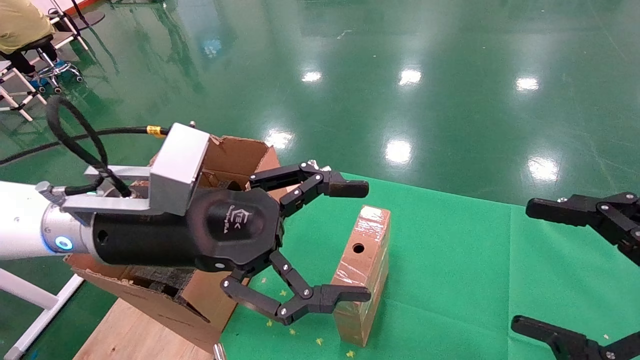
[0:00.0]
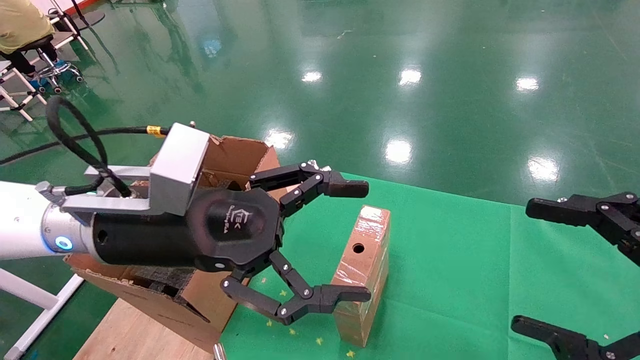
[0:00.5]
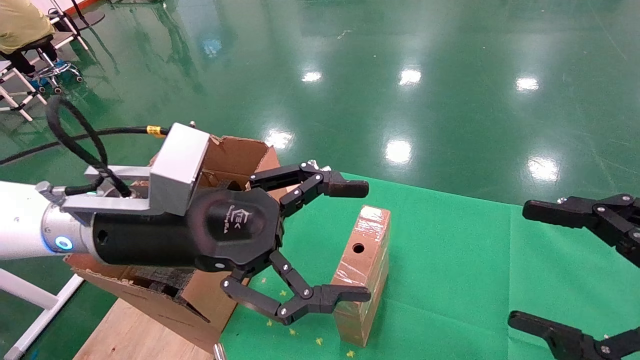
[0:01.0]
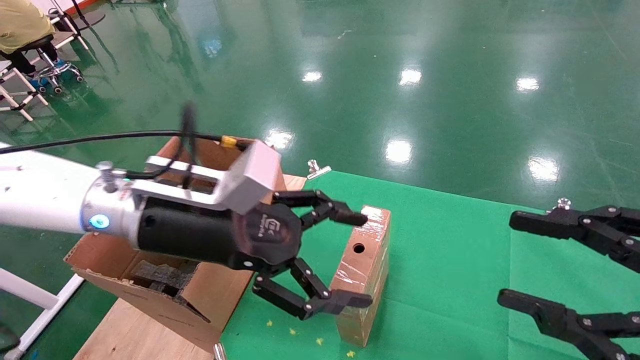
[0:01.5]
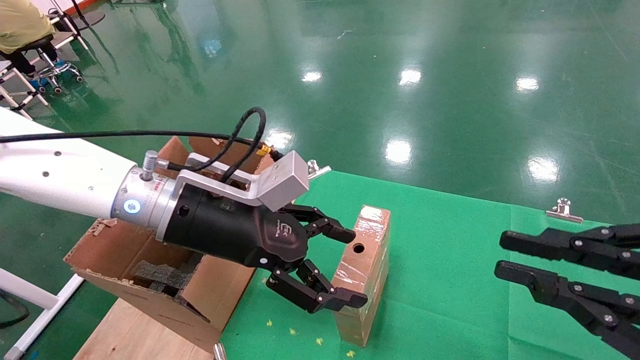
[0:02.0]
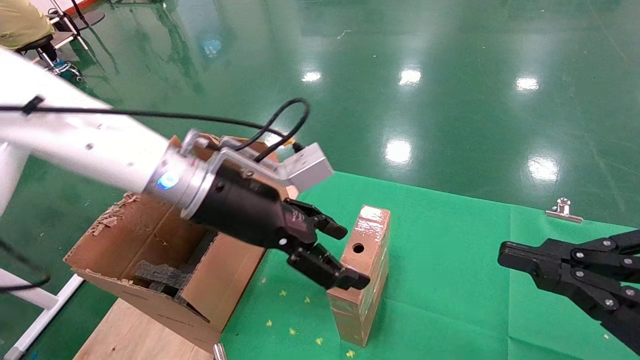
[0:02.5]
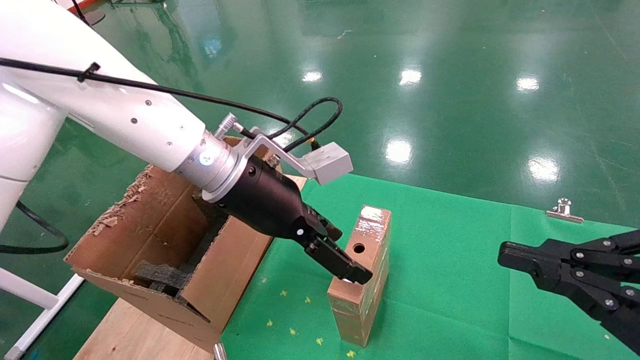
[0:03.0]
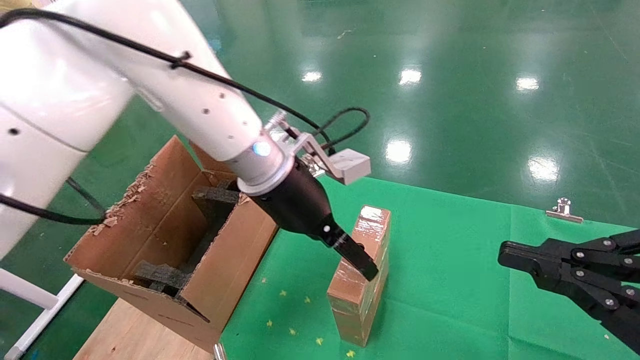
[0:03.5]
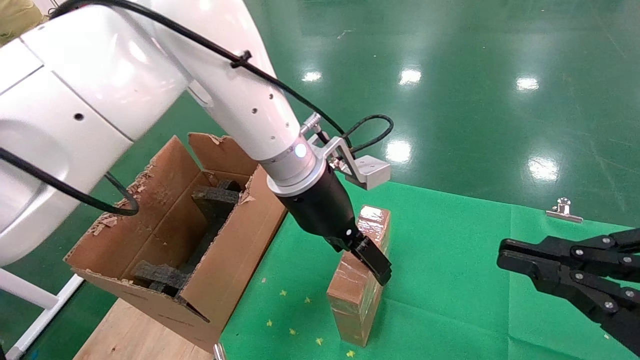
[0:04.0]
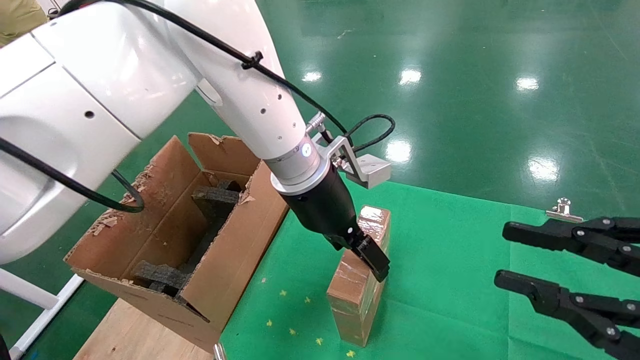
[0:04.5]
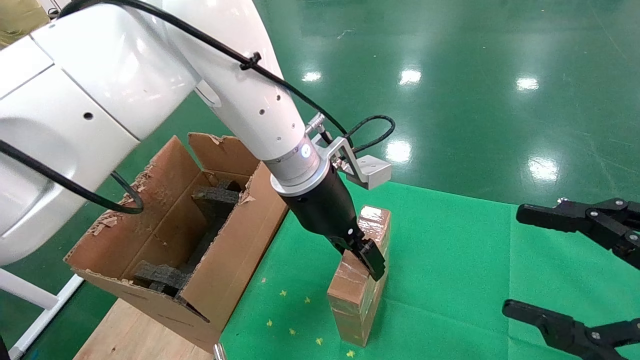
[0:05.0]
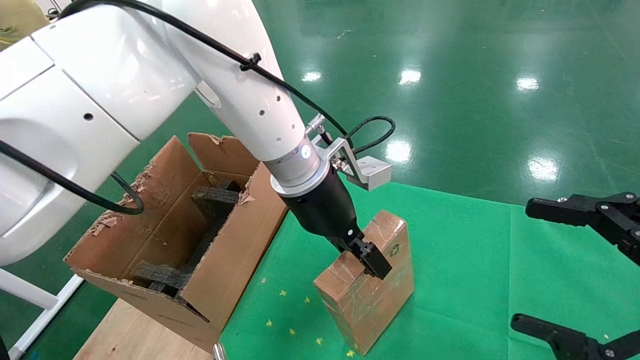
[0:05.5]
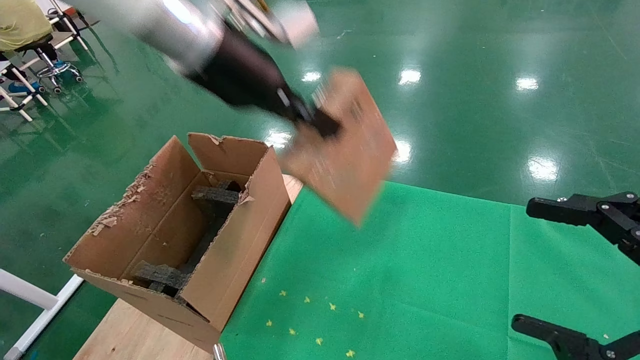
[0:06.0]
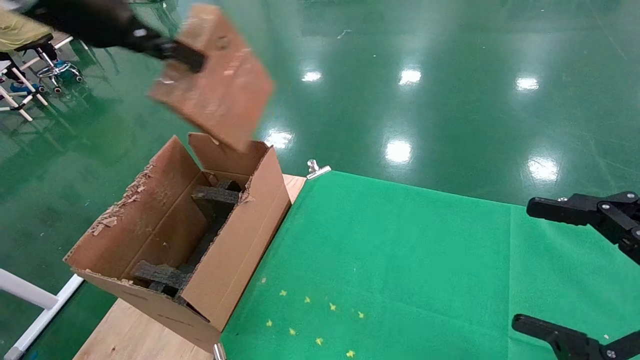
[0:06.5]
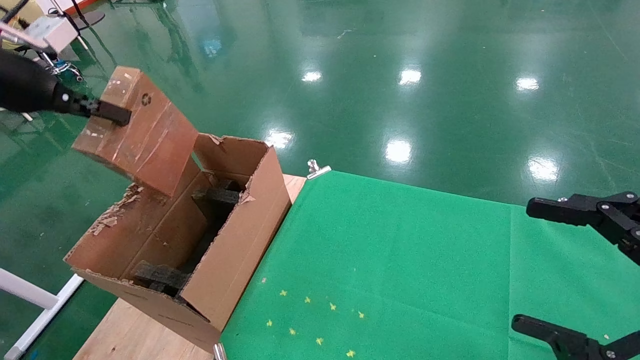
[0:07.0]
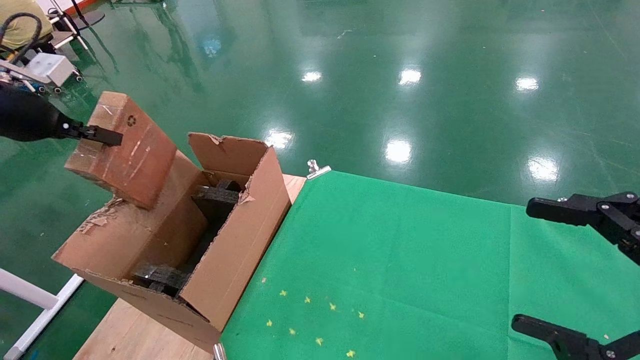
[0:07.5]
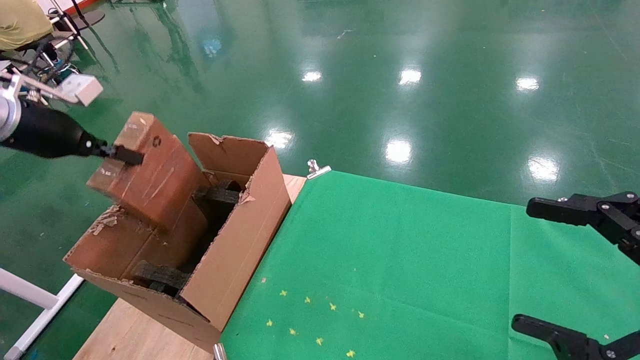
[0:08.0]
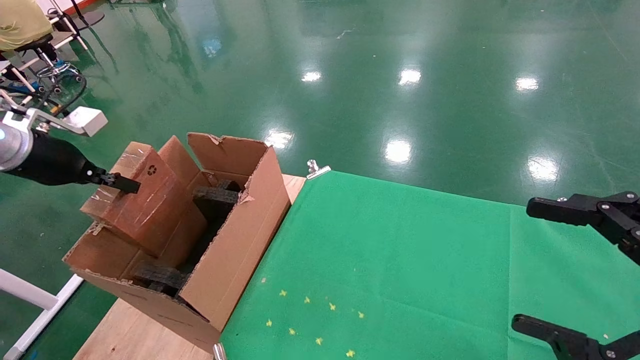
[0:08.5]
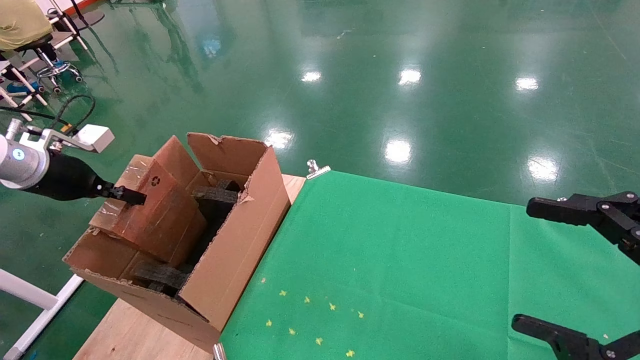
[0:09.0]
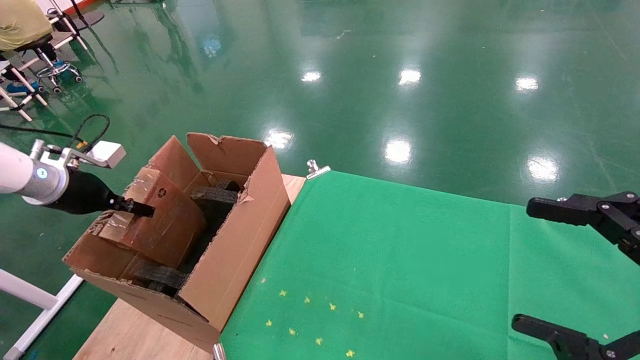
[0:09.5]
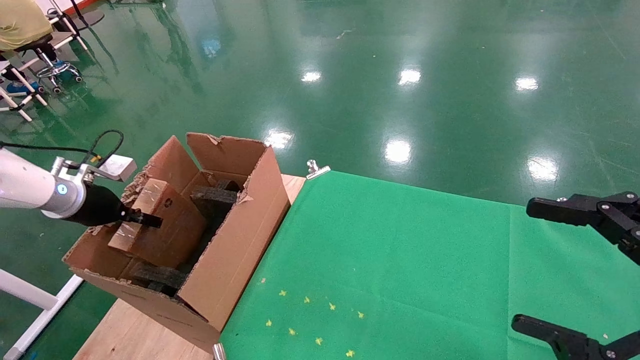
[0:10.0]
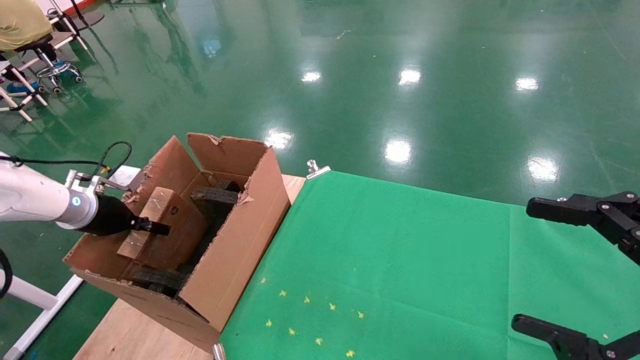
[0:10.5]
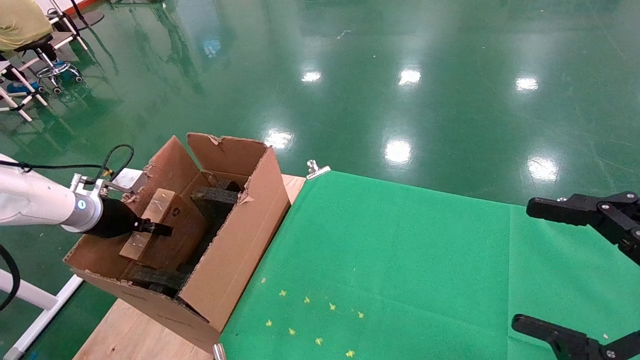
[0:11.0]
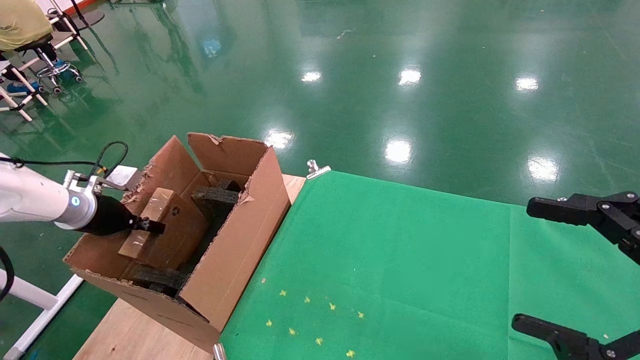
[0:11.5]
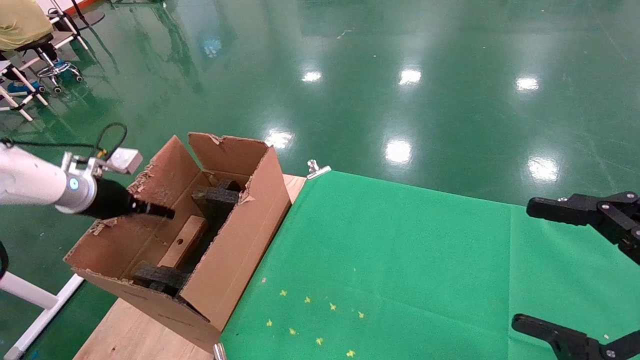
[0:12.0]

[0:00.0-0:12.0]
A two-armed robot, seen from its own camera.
Task of the whole recording: using a robotic arm to pick up a cardboard box and palace it the carton.
Step, 0:01.5 to 0:05.0: Pick up the mouse and the power cord paper box.
0:00.0 to 0:02.0: The left gripper shifts some 5 cm forward, while the right gripper closes its fingers.
0:02.0 to 0:04.0: The left gripper goes approximately 15 cm to the right and forward.
0:04.0 to 0:06.0: The left gripper goes roughly 20 cm upward and to the left, and closes up, while the right gripper opens up.
0:06.0 to 0:08.0: The left gripper travels to the left by some 30 cm.
0:08.0 to 0:10.0: The left gripper shifts some 15 cm downward.
0:10.0 to 0:12.0: The left gripper opens its fingers.

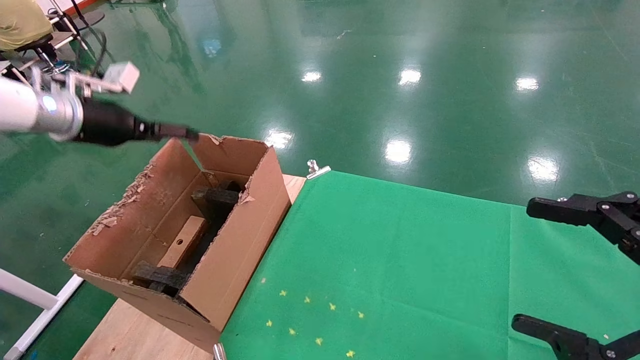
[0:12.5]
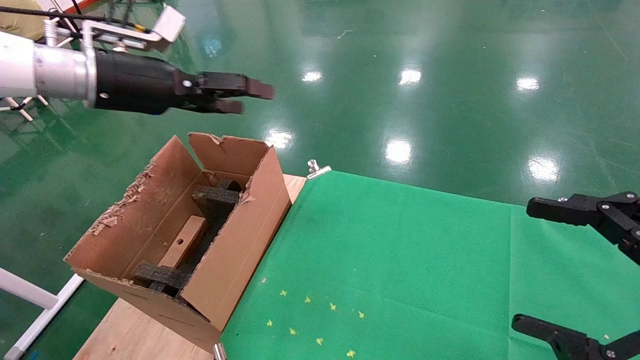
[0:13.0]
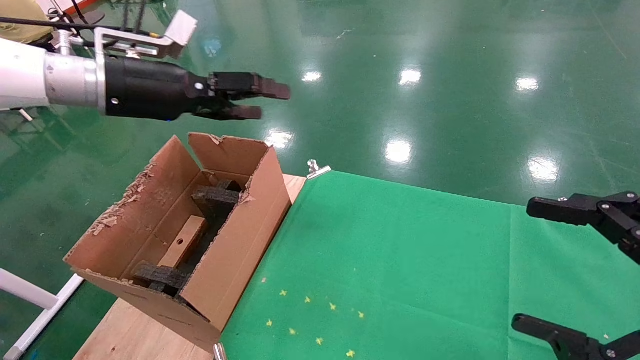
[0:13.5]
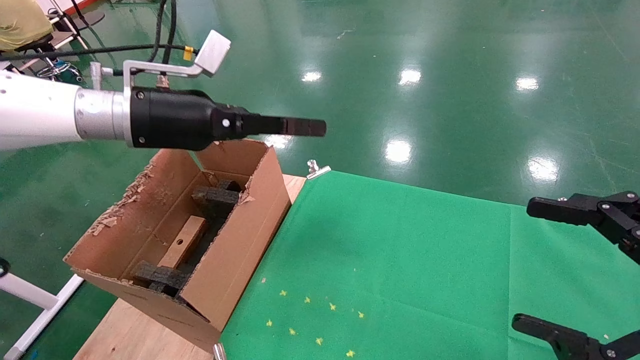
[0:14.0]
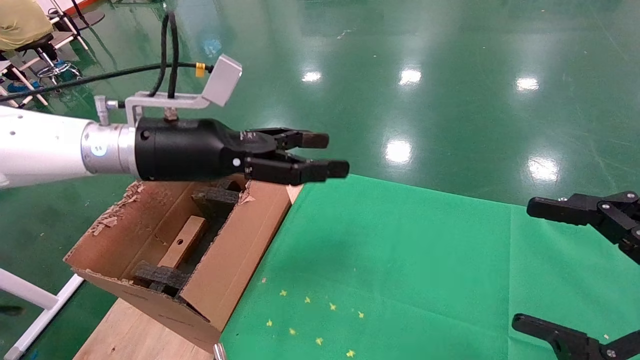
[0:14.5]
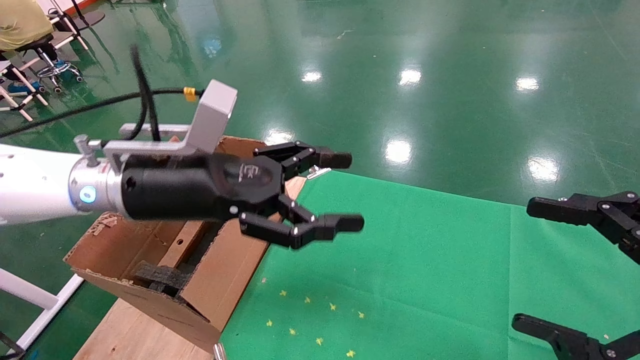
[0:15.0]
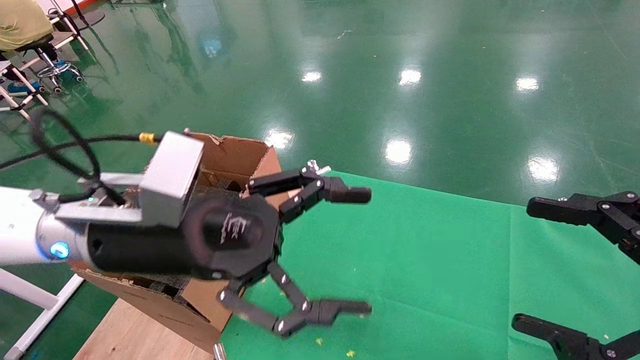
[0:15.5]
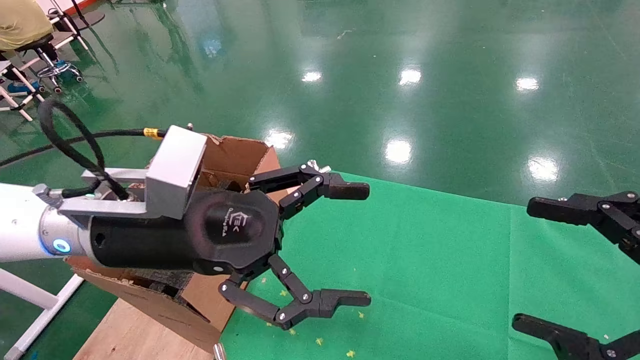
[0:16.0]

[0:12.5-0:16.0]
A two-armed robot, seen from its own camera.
Task of the whole recording: using a robotic arm to pick up a cardboard box and palace it the carton.
0:12.5 to 0:14.5: The left gripper travels to the right by approximately 20 cm.
0:14.5 to 0:16.0: The left gripper goes some 10 cm backward.
